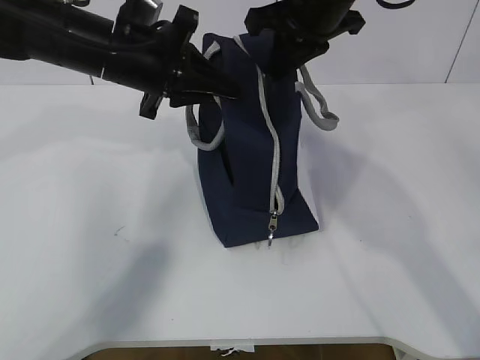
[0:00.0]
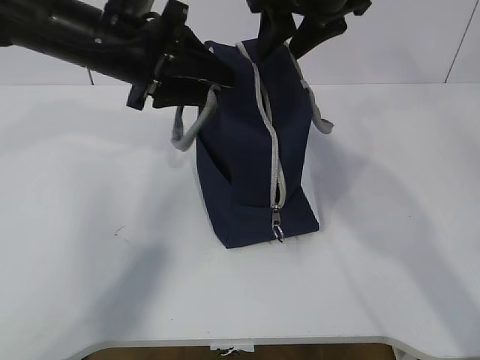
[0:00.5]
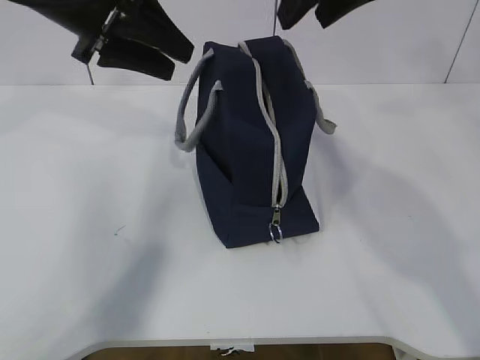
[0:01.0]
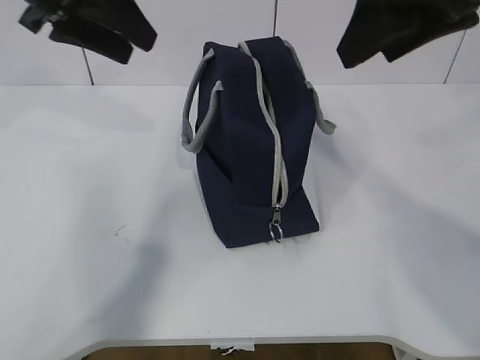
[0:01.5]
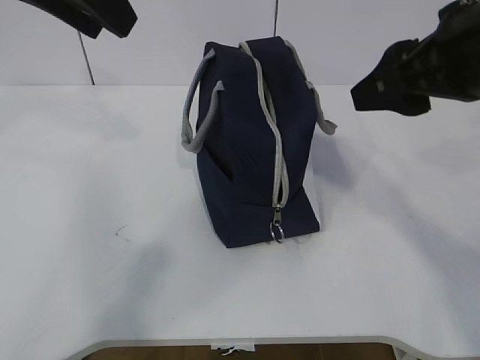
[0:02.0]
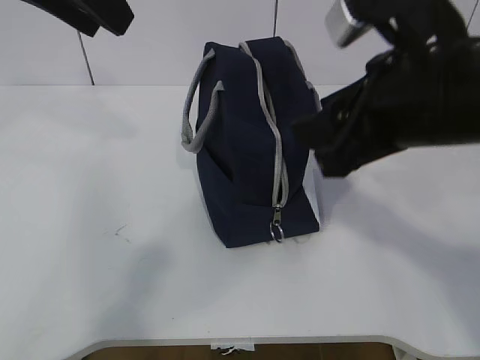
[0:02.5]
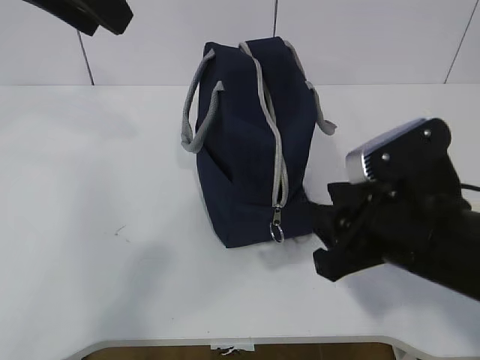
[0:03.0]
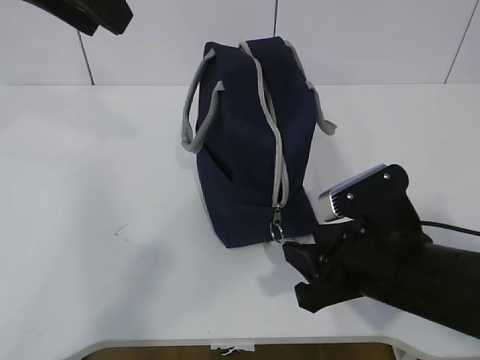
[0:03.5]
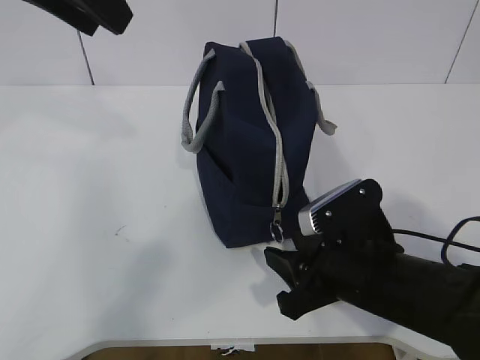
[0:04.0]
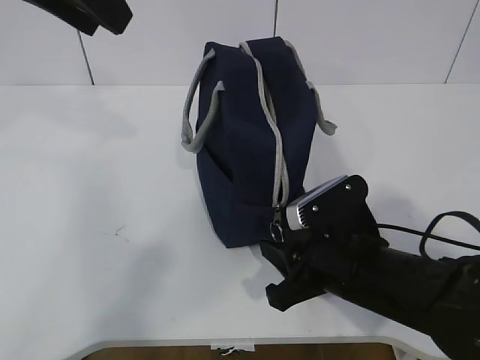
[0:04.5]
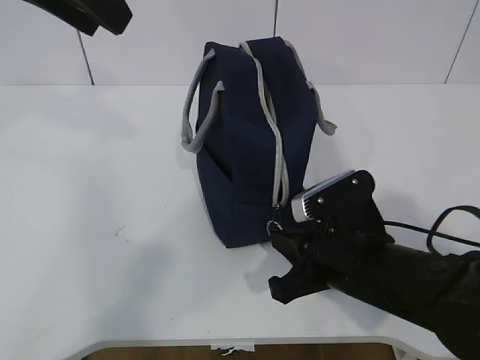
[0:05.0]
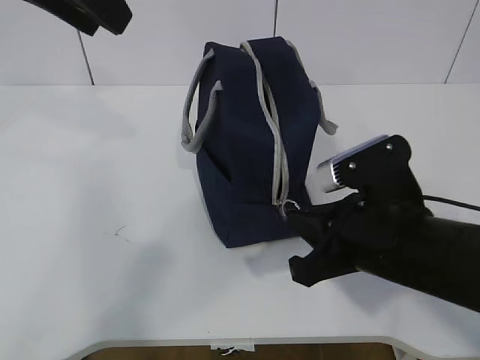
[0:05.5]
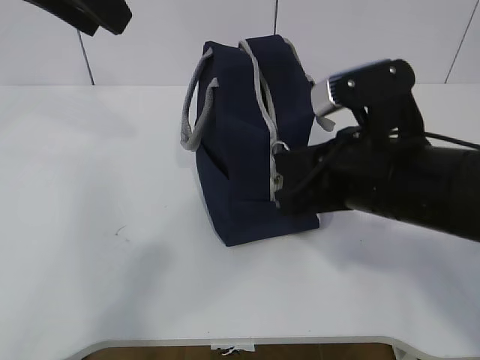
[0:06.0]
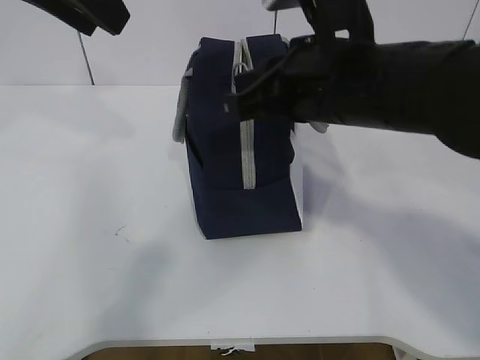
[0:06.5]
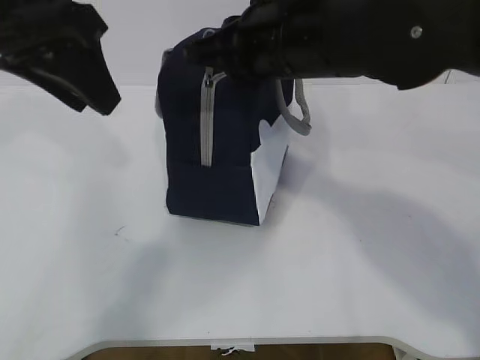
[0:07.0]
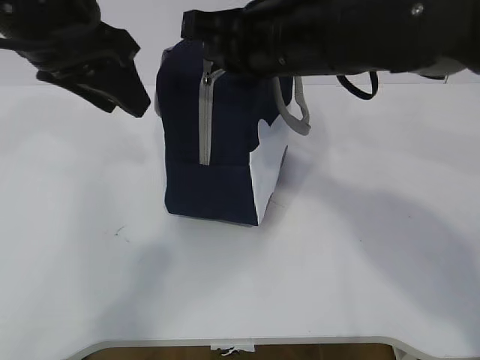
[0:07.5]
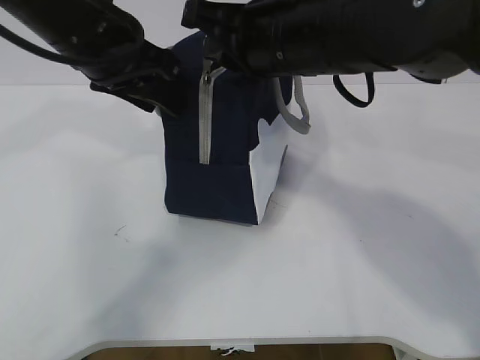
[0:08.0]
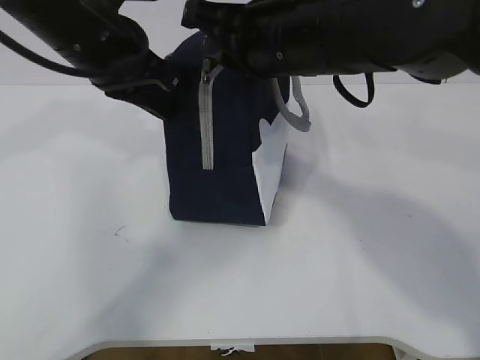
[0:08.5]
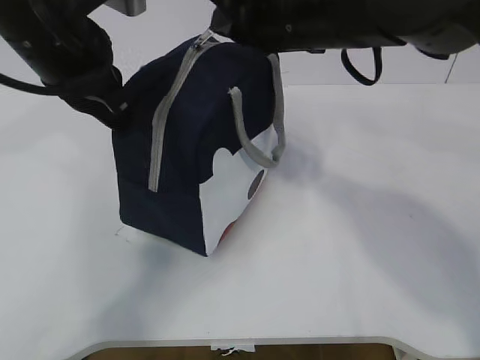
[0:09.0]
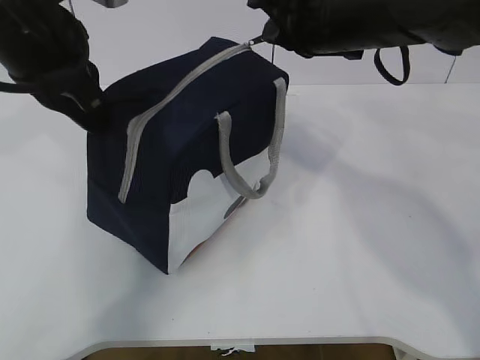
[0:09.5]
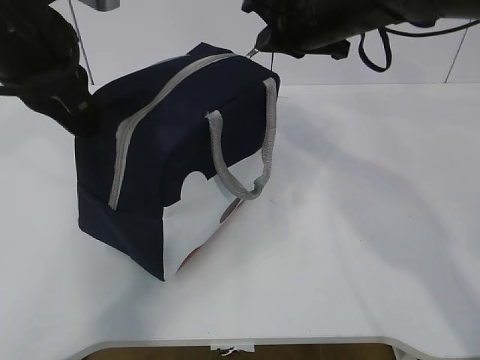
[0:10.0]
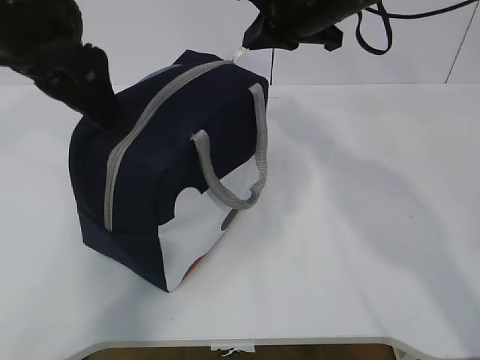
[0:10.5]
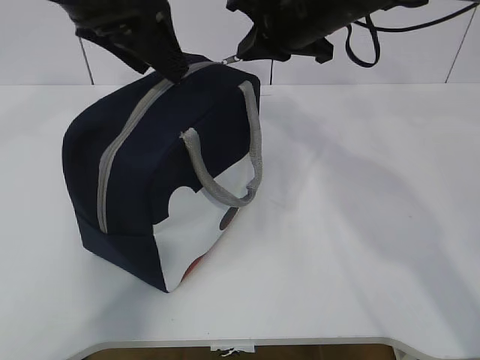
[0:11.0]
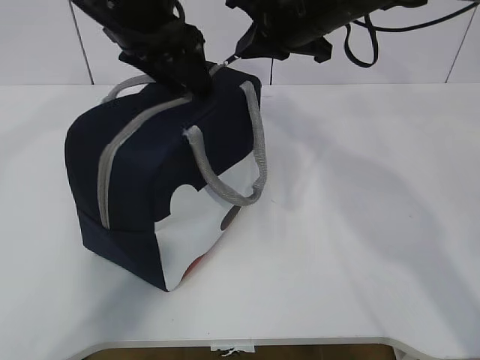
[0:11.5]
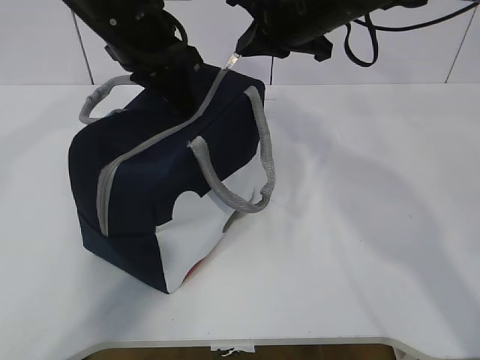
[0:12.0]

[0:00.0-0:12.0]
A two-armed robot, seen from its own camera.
0:00.0 to 0:02.0: The left gripper heads upward and backward, covering about 15 cm, and opens up. Meanwhile the right gripper shifts approximately 20 cm backward and to the right, and opens its fingers.
0:02.0 to 0:04.0: The right gripper moves downward, some 20 cm.
0:04.0 to 0:06.0: The right gripper goes some 10 cm upward, and closes.
0:06.0 to 0:08.0: The left gripper shifts some 10 cm downward and forward. The right gripper heads forward, upward and to the left, covering roughly 15 cm.
0:08.0 to 0:10.0: The left gripper shifts by some 5 cm, and closes. The right gripper moves forward and to the right, about 10 cm.
0:10.0 to 0:12.0: The left gripper moves forward and to the right, approximately 10 cm, and opens and closes again.

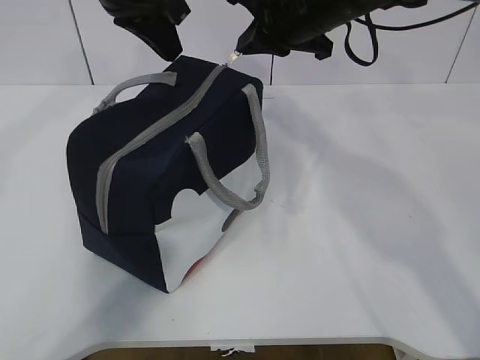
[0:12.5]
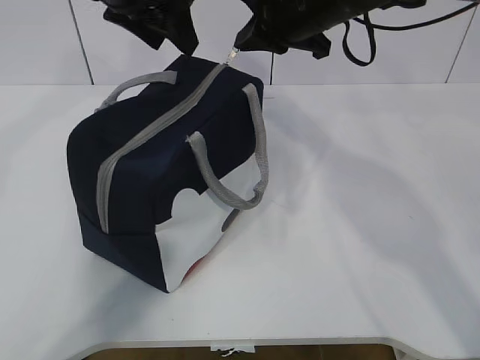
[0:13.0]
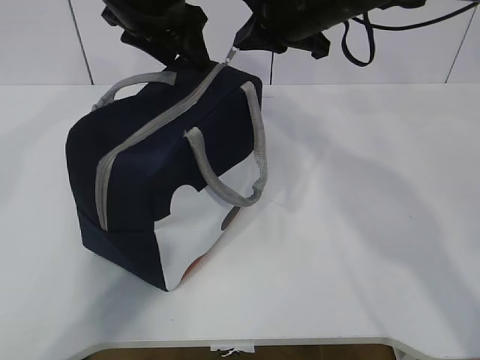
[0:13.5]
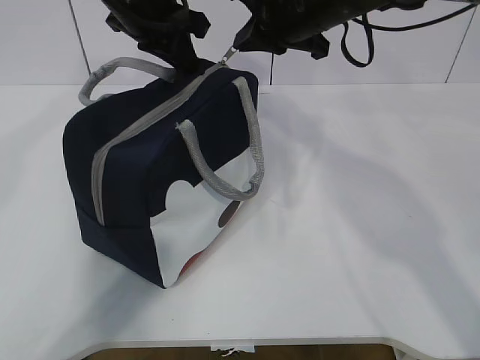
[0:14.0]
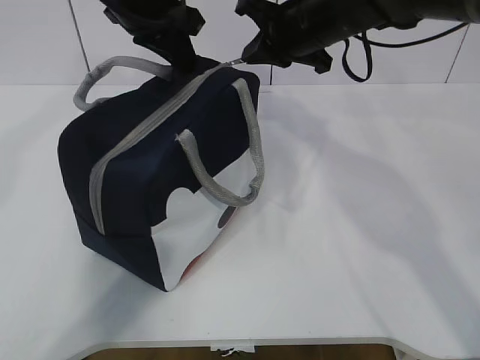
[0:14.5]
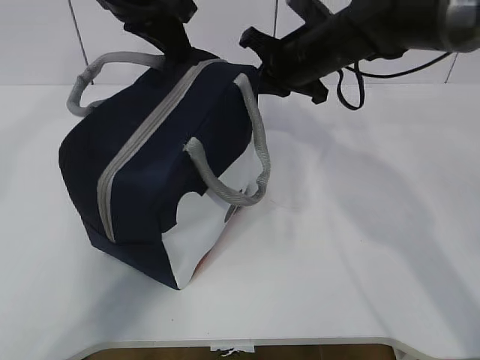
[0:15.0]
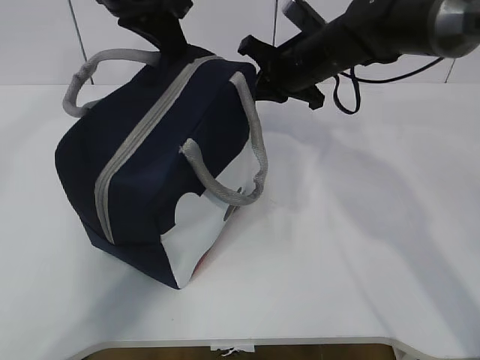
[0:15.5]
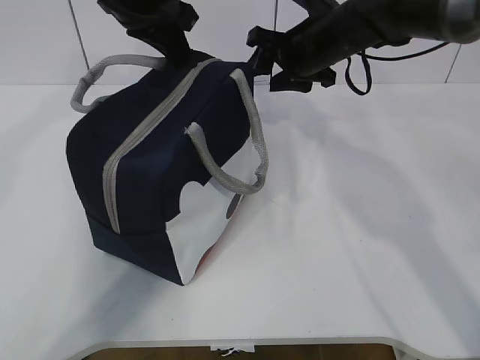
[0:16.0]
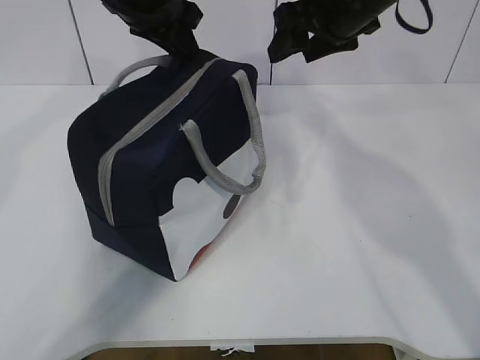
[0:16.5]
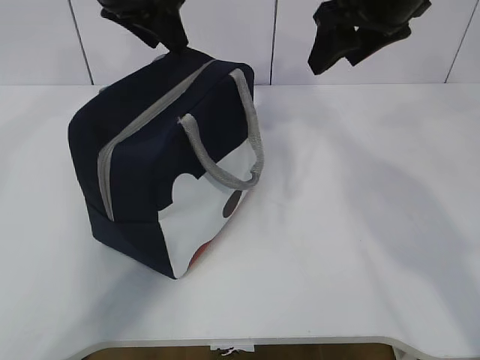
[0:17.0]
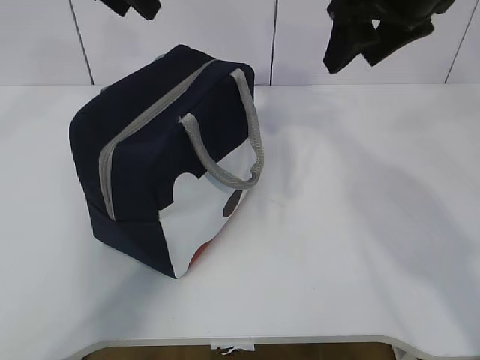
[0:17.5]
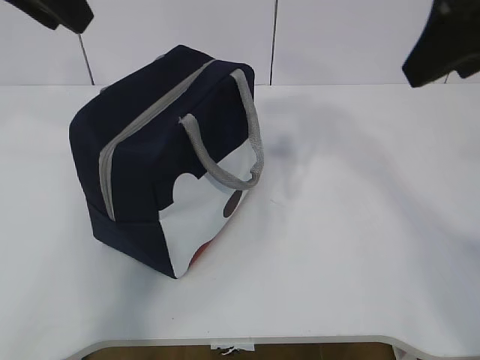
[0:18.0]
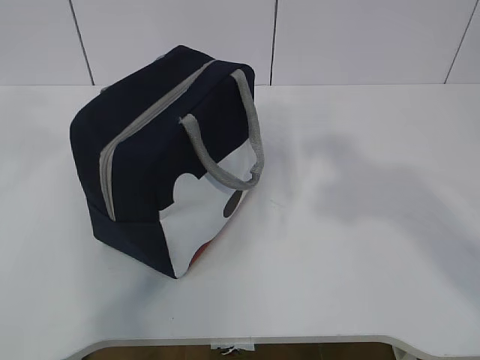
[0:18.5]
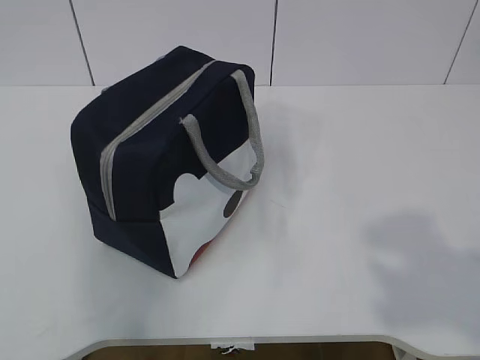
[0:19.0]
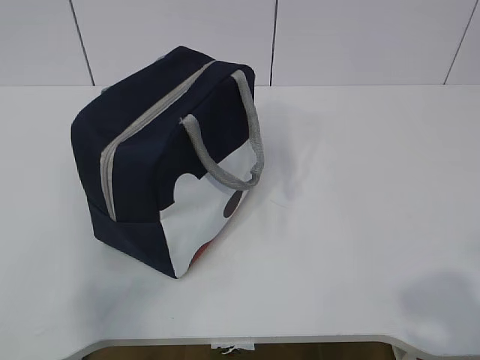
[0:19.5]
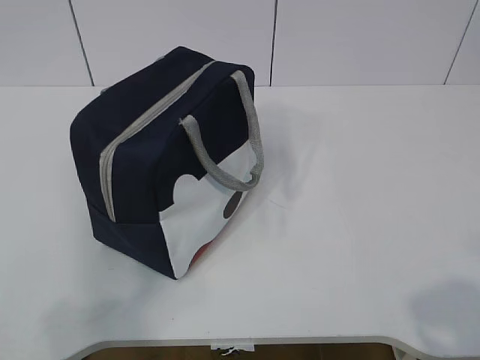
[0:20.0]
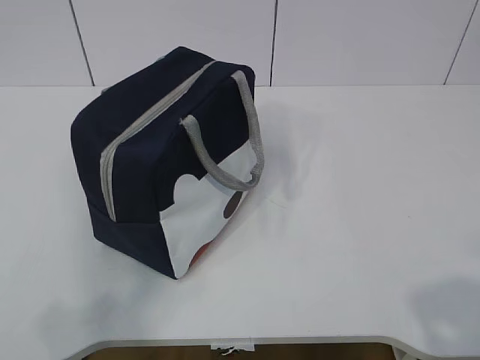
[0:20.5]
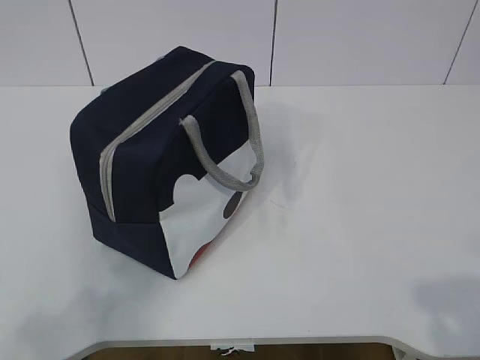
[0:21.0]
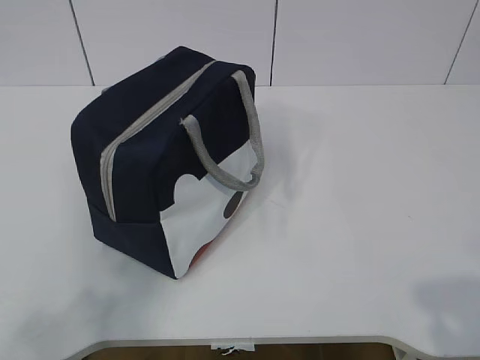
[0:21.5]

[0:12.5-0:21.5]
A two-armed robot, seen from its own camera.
Step, 0:12.5 to 0:17.0: zip up the zipper to close the bag.
0:12.5 to 0:14.5: The left gripper opens, then closes again.
0:14.5 to 0:17.0: The left gripper opens its fingers; the right gripper shifts approximately 10 cm upward, backward and to the right, and opens its fingers.
0:17.0 to 0:19.5: The left gripper shifts approximately 50 cm backward and to the left; the right gripper shifts some 40 cm backward.
